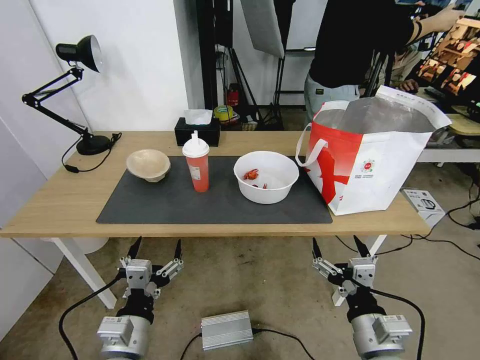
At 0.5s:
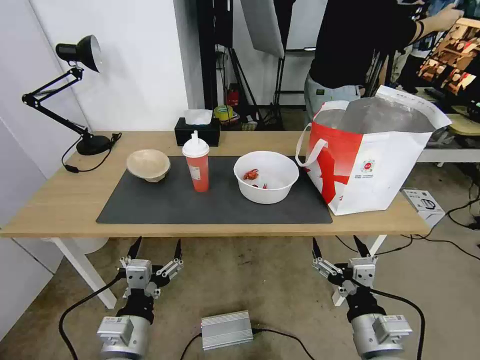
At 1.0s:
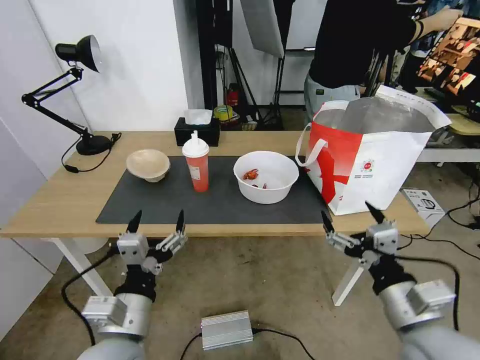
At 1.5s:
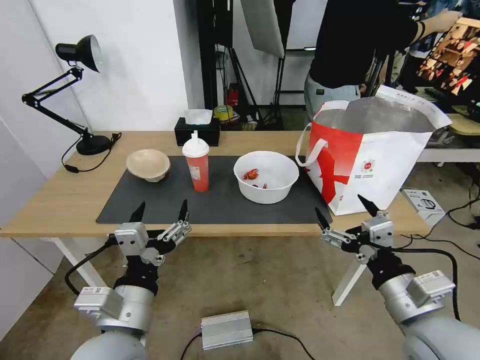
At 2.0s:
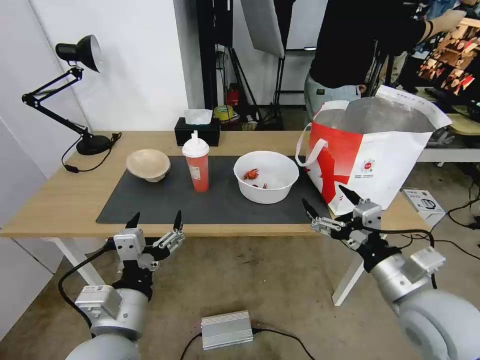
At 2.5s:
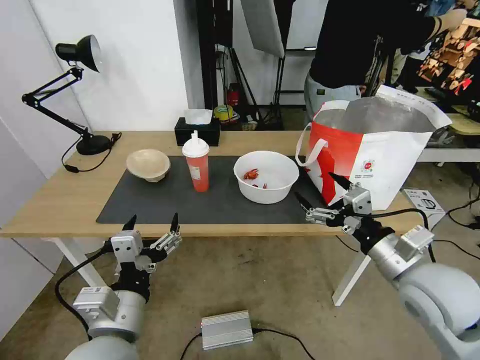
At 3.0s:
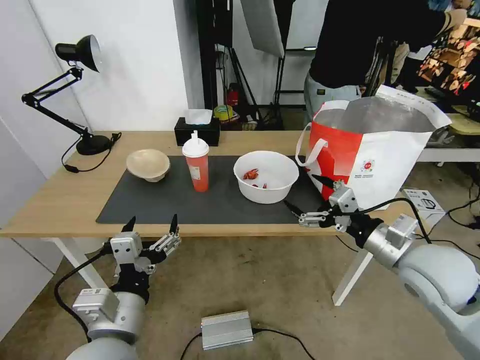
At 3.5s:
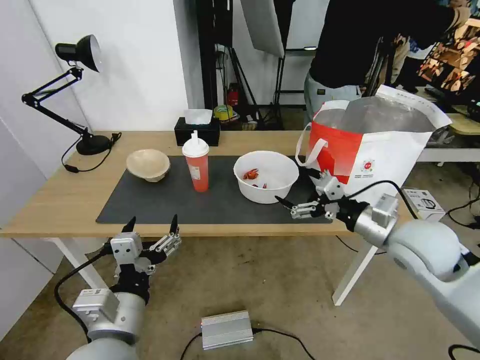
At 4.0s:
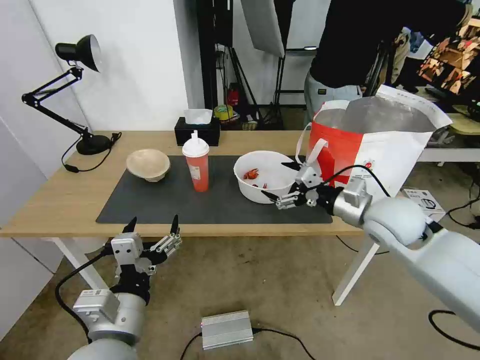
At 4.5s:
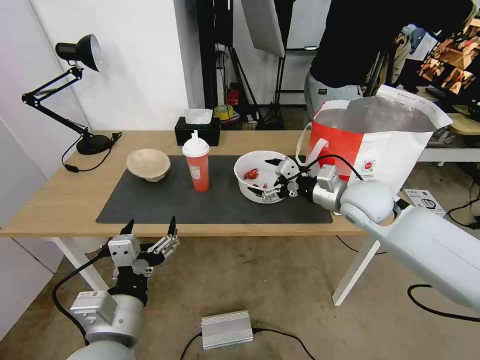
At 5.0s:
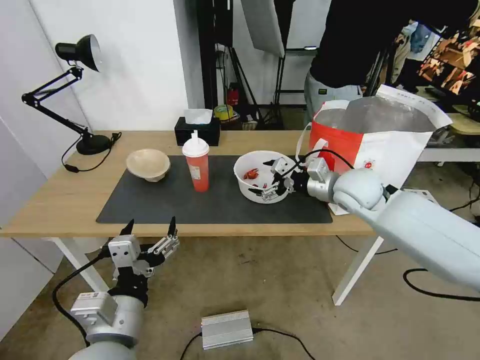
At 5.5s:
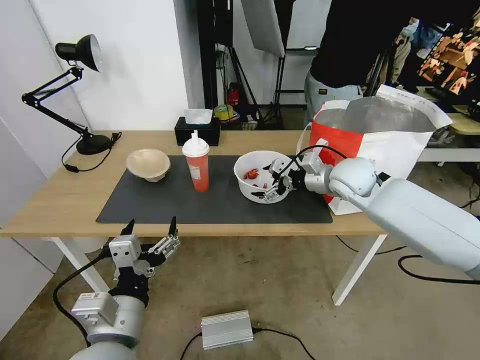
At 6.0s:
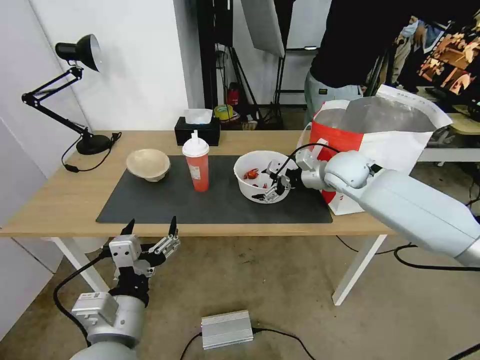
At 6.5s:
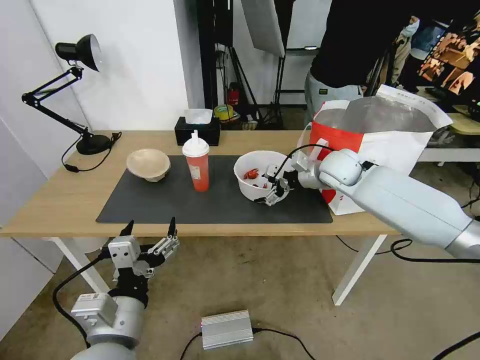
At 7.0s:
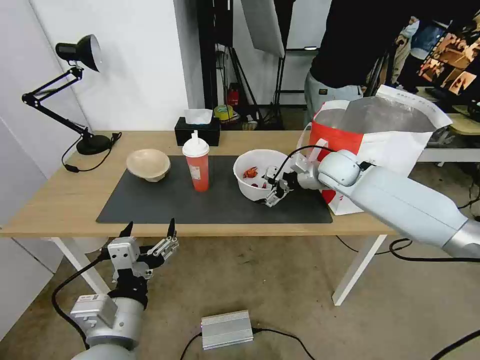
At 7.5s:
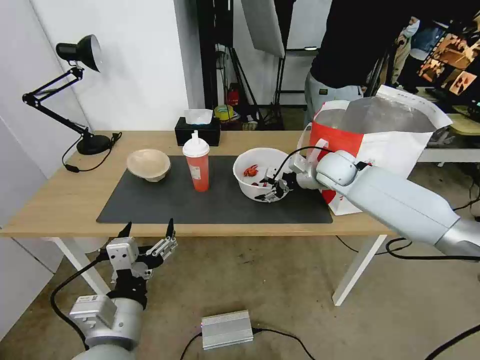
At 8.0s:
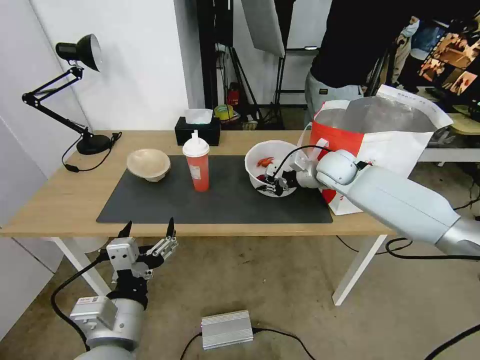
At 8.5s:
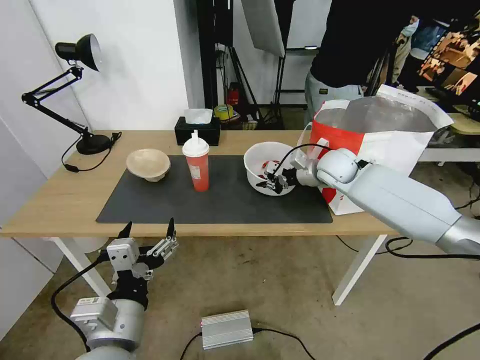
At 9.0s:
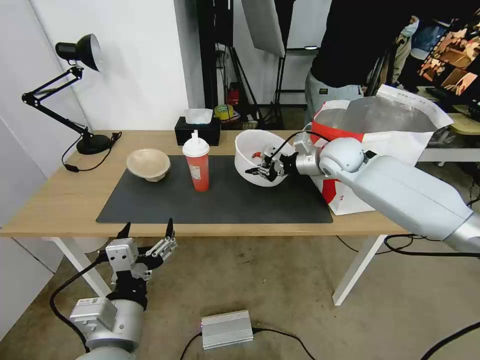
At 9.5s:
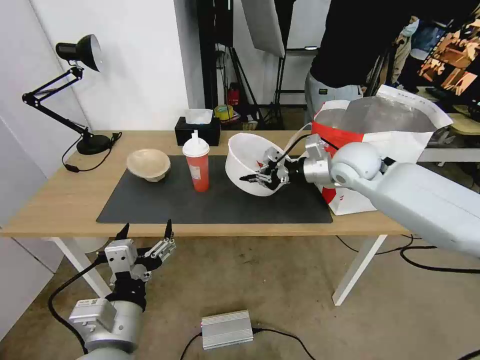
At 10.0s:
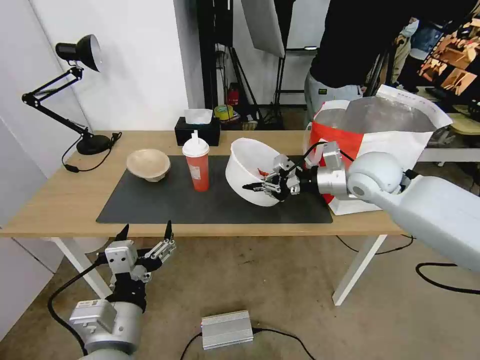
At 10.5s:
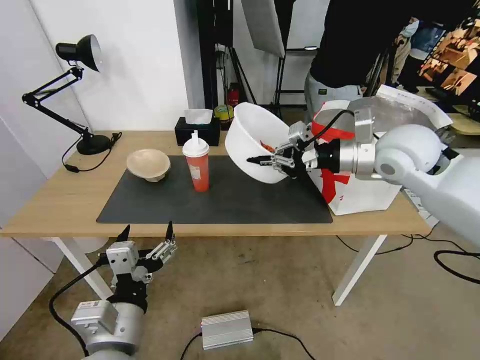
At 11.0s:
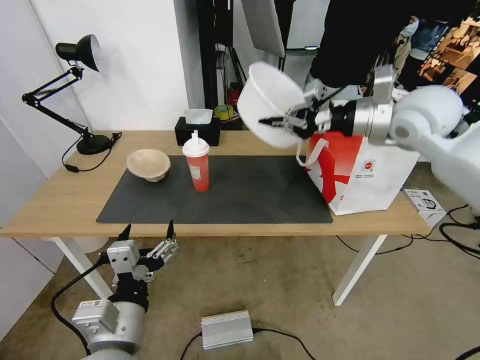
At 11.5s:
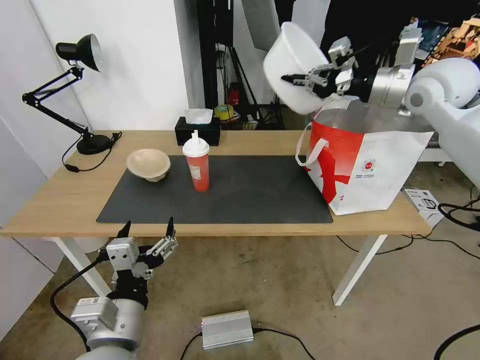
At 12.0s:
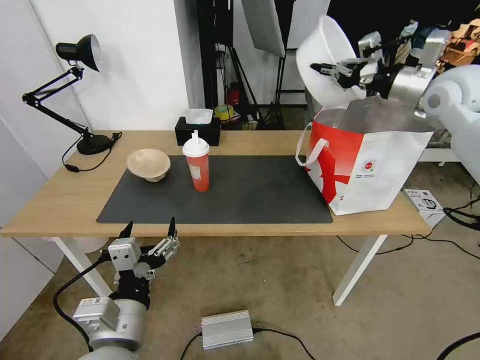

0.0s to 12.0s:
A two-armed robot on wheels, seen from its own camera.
Task of the whole recording: Pick up the trash from the table and place it into the takeout bag.
2.0s to 4.0s: The right gripper is displaced forward by approximately 15 cm.
4.0s to 6.0s: The right gripper moves forward, roughly 15 cm.
6.0s to 8.0s: The right gripper closes its fingers.
8.0s to 10.0s: The right gripper is displaced backward and upward by about 10 cm.
10.0s to 12.0s: The right gripper goes roughly 20 cm upward, to the right and forward.

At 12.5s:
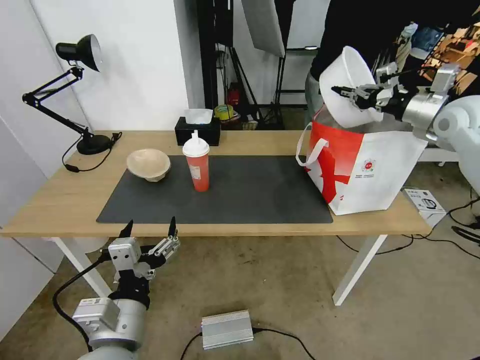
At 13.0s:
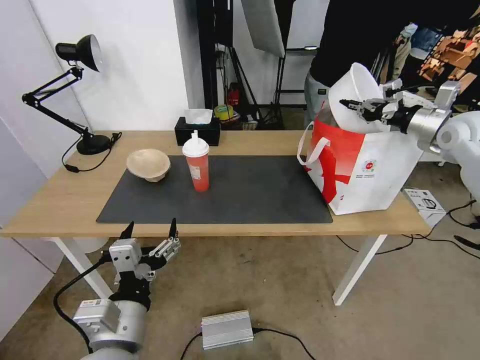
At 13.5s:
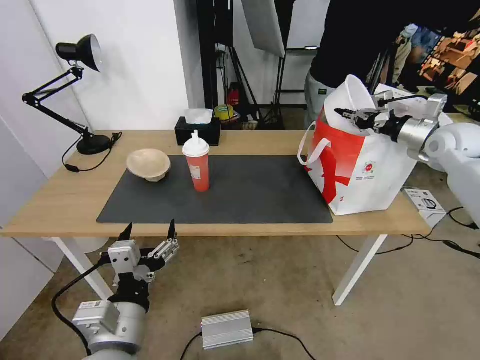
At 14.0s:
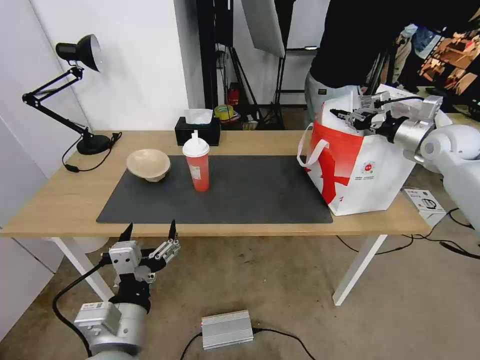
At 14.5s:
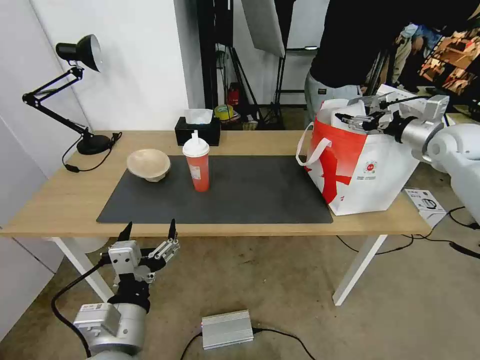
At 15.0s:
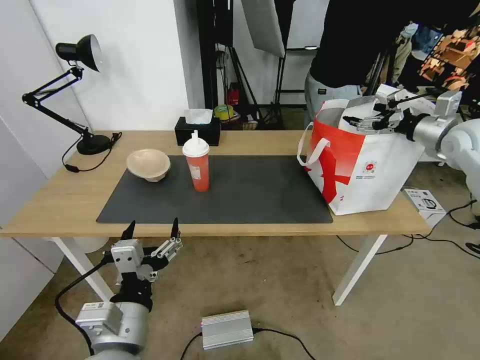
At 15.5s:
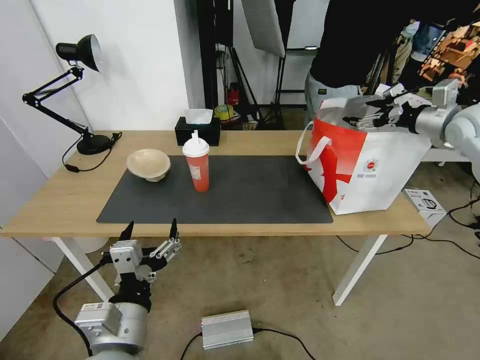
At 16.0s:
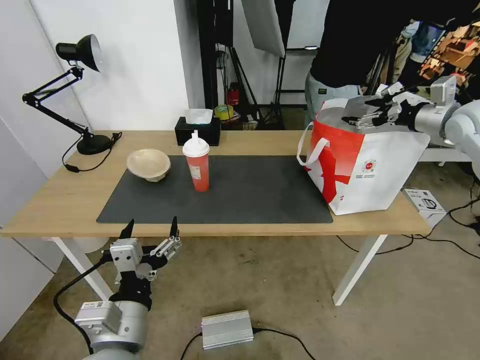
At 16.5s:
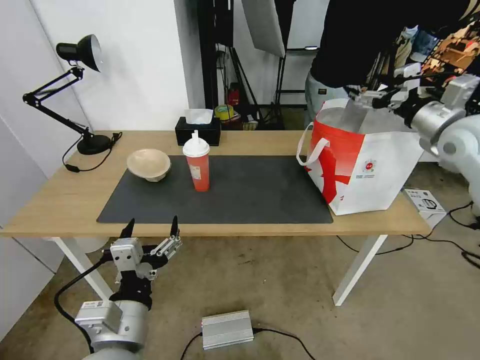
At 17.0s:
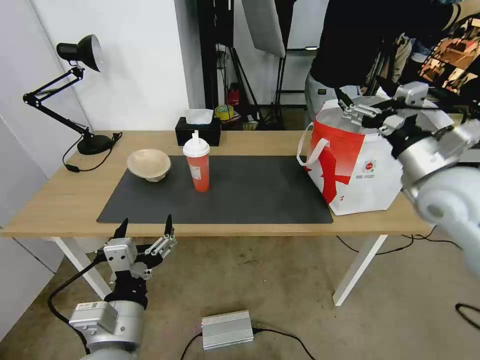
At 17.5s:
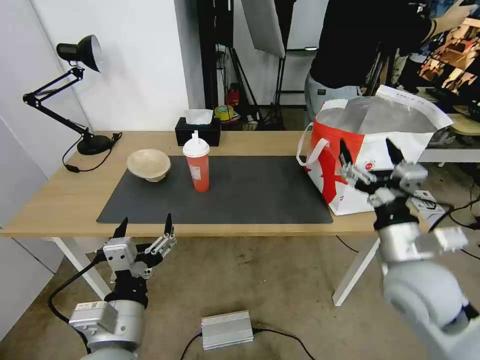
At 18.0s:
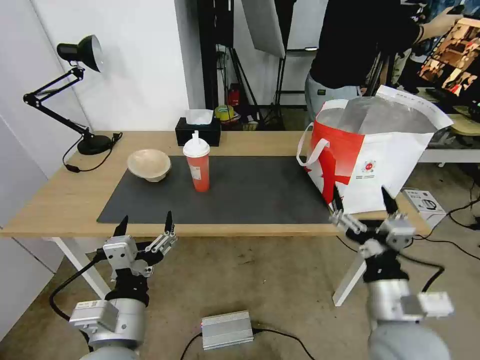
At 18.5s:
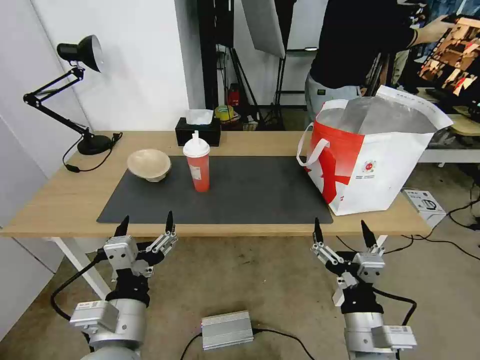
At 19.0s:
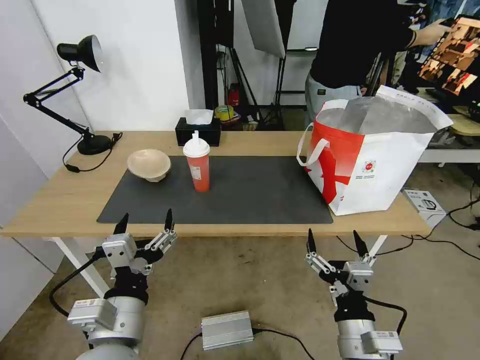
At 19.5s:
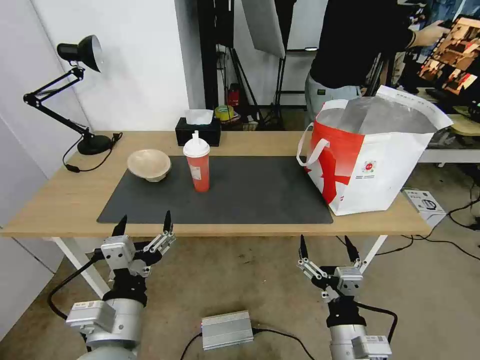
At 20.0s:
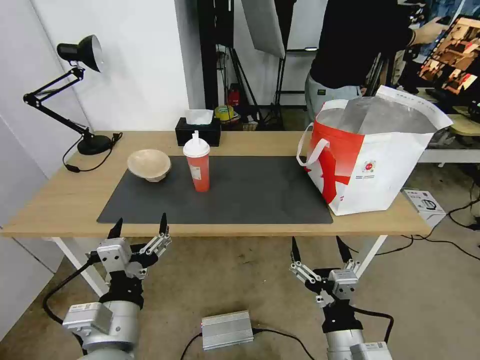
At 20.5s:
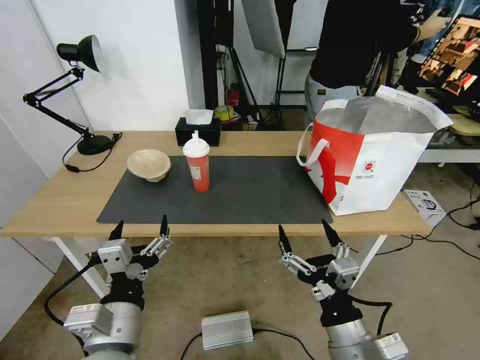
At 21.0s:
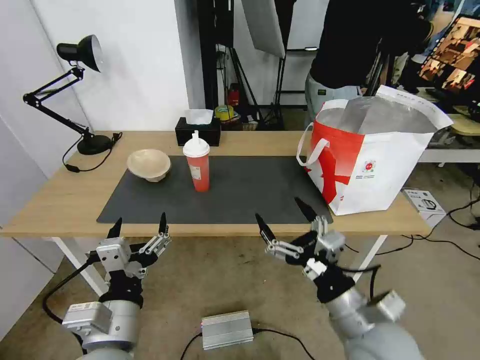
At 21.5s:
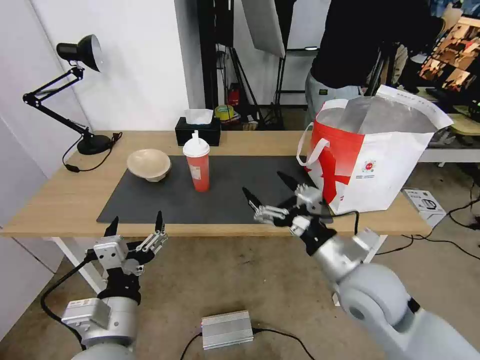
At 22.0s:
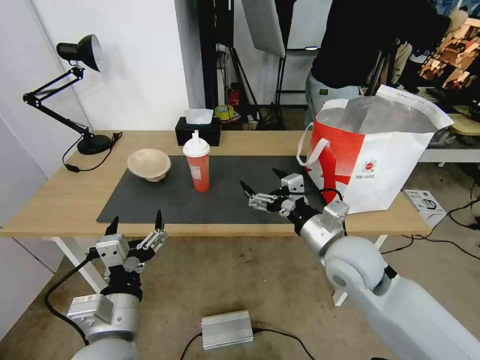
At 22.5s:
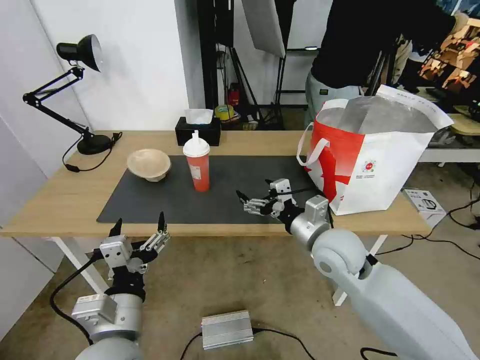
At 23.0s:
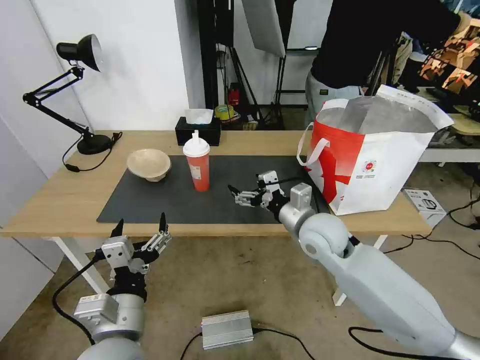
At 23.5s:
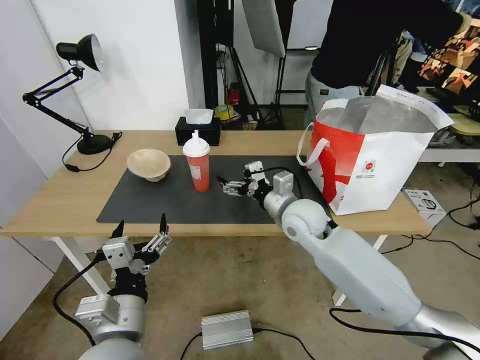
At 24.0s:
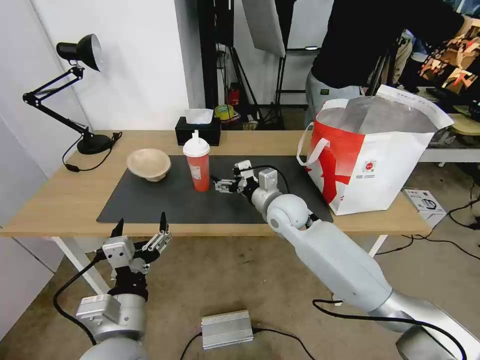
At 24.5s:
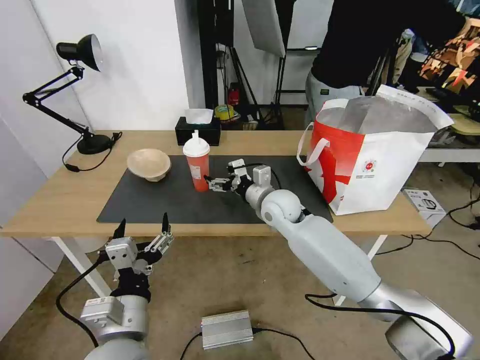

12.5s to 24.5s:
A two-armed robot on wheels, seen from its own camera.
Task of the whole recording: Pick up the trash from the table and place it into the takeout bag.
12.5s to 14.5s: The right gripper is displaced downward by some 5 cm, and opens up.
14.5s to 16.5s: The right gripper travels backward and to the left by roughly 10 cm.
16.5s to 18.5s: The right gripper travels backward, downward and to the left by approximately 50 cm.
18.5s to 20.5s: The grippers move only a little.
20.5s to 22.5s: The right gripper moves forward, some 20 cm.
22.5s to 24.5s: The right gripper travels forward and to the left by approximately 15 cm.

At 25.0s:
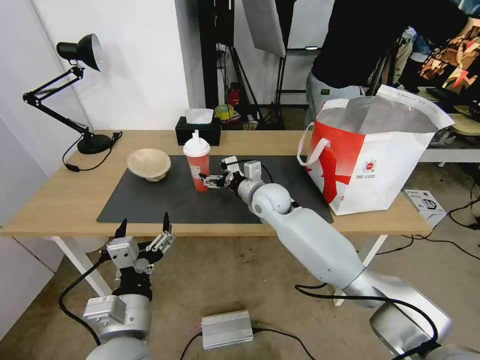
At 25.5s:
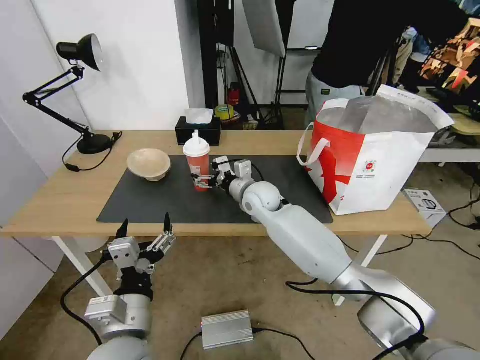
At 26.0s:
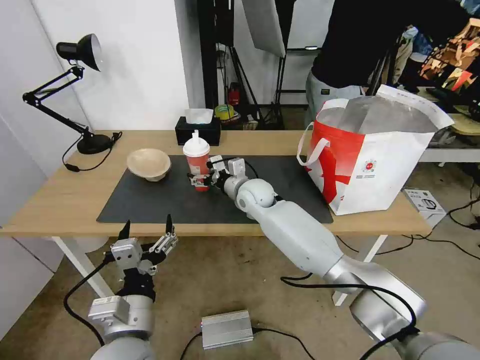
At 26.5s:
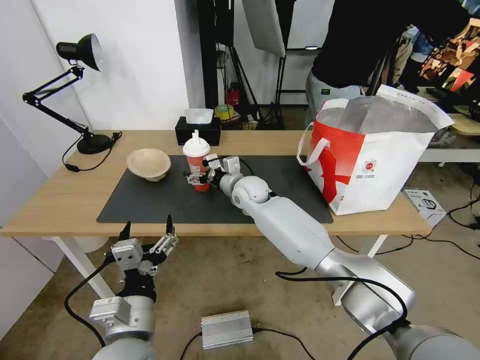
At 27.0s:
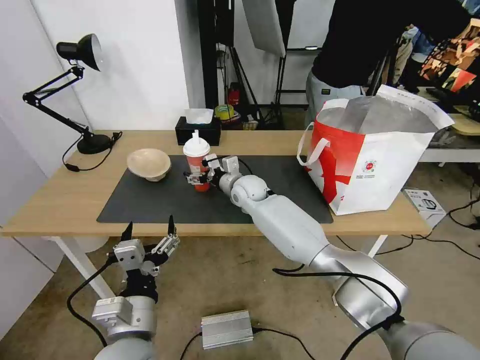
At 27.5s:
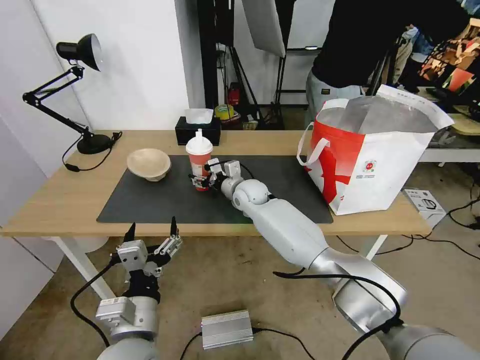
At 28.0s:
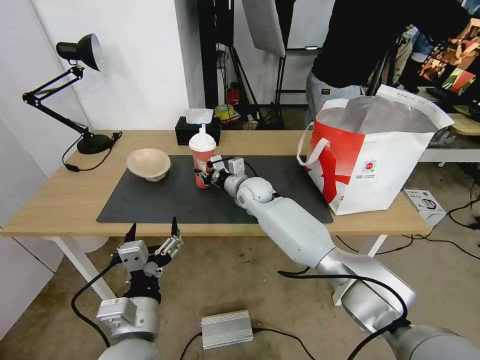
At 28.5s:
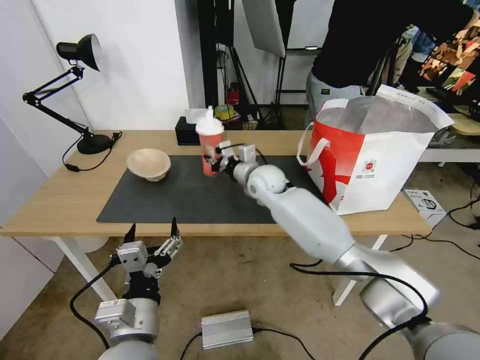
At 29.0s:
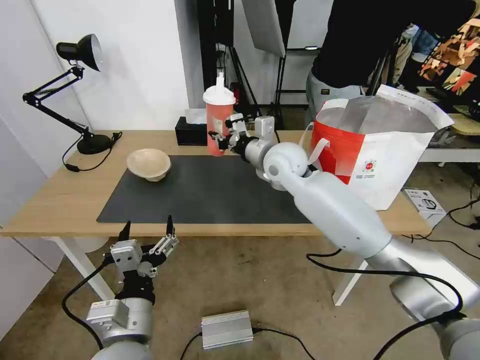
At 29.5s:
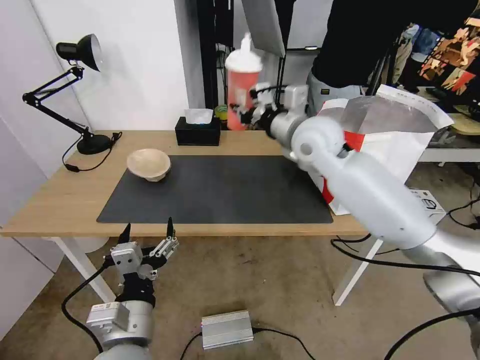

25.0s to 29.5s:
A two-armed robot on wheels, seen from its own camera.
Task of the whole recording: Pick up the trash from the table and place it into the takeout bag.
25.0s to 27.0s: The right gripper heads forward and to the left, covering some 10 cm.
27.0s to 29.5s: The right gripper is displaced upward and to the right by about 25 cm, and closes.
